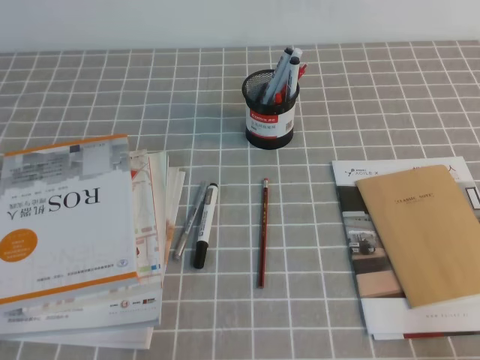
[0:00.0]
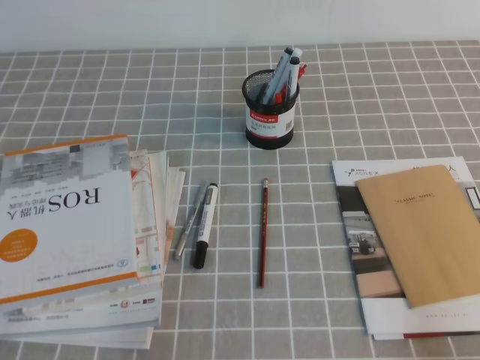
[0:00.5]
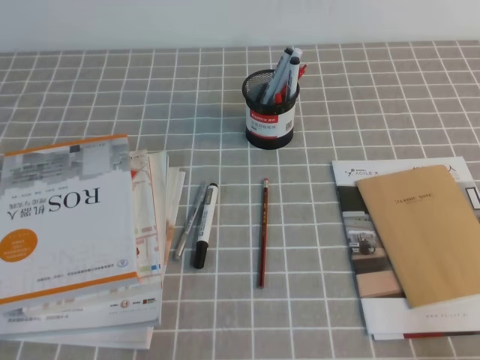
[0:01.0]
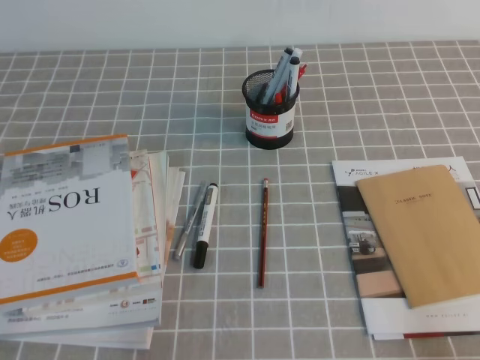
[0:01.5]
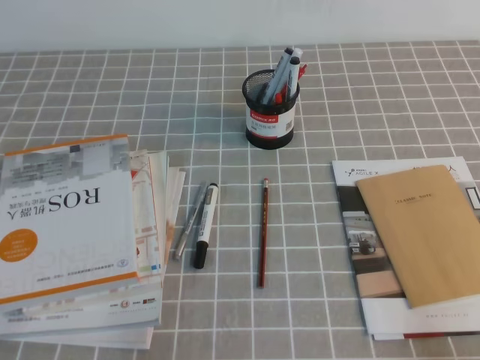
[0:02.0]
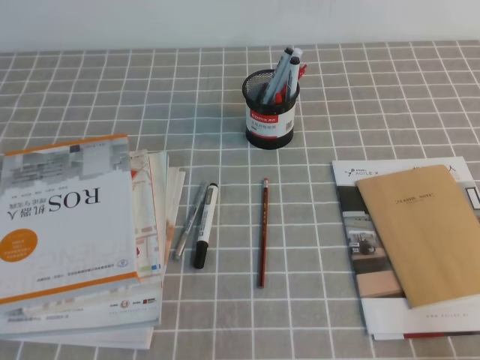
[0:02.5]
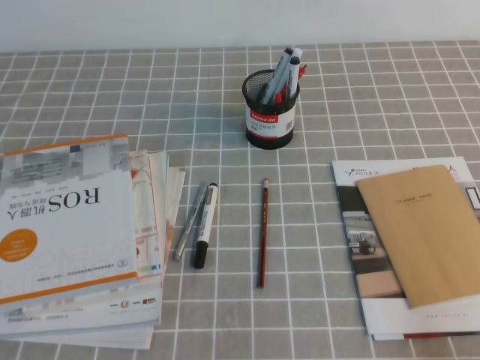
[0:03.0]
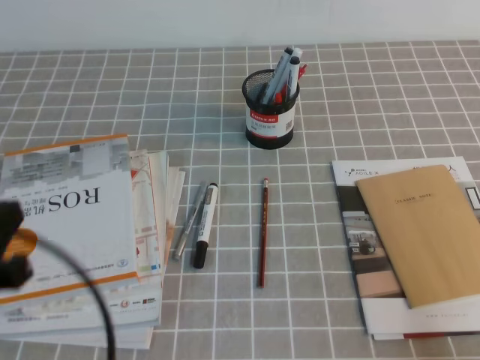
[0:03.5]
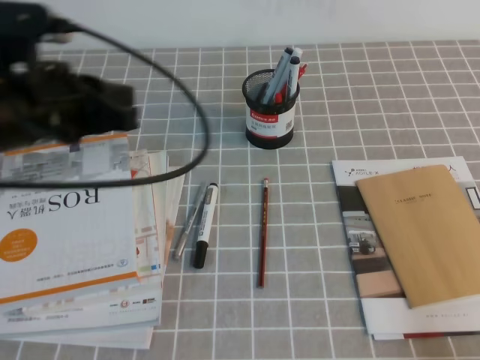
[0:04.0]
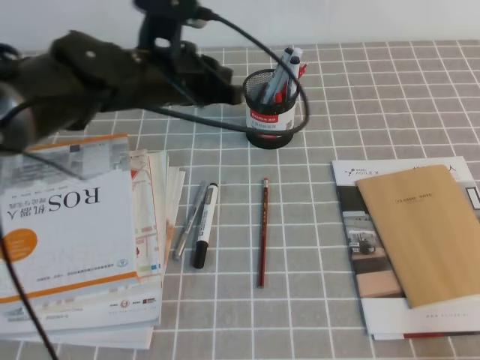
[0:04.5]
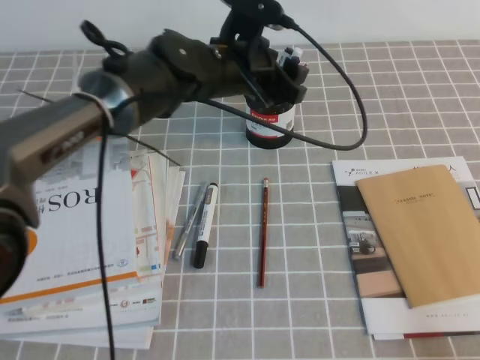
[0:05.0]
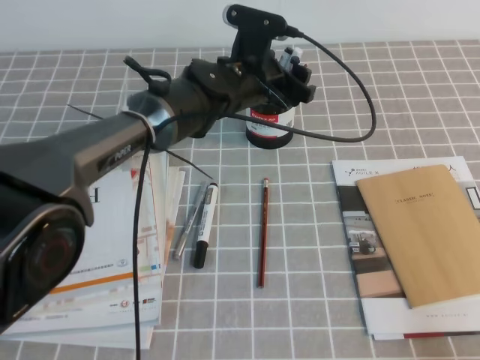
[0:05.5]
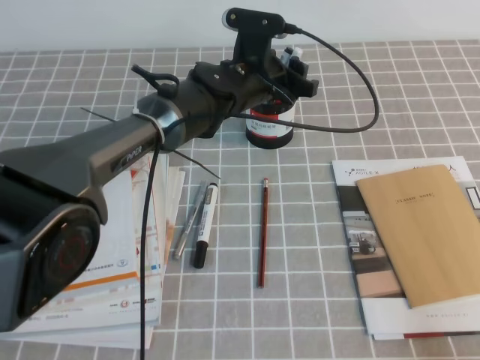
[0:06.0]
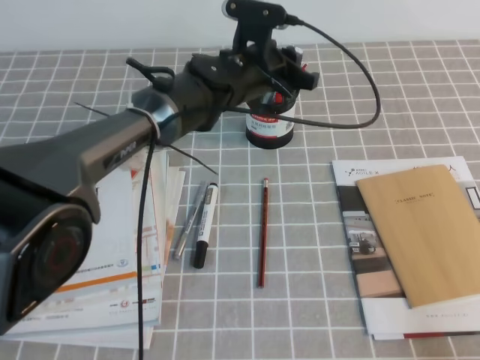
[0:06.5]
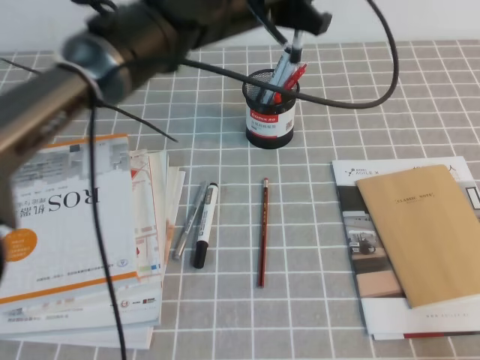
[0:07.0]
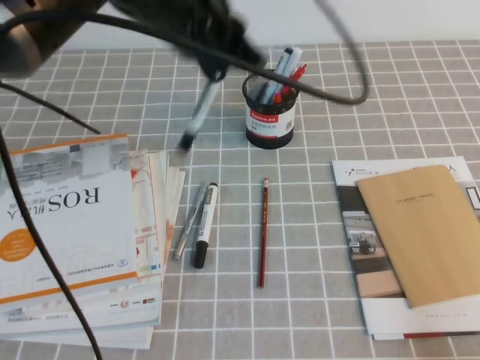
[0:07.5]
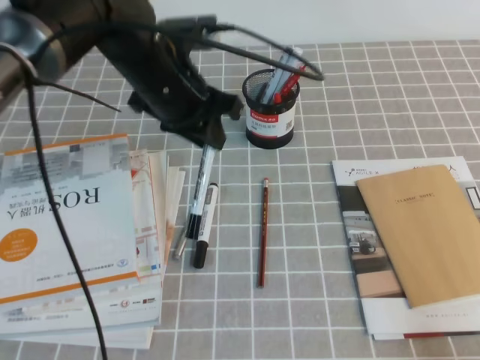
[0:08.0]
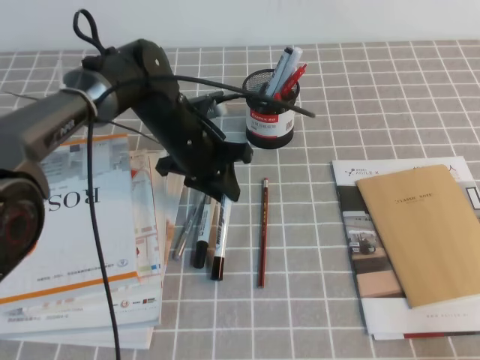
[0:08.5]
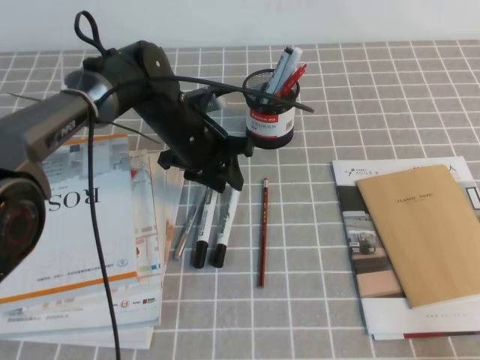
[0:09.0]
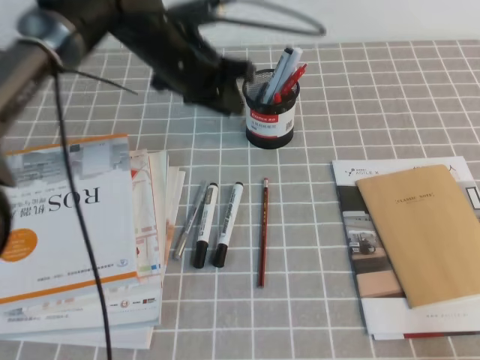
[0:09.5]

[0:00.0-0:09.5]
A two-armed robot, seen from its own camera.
2.0 to 4.0 s: The left gripper travels forward and upward by about 25 cm.
4.0 to 5.5 s: The left gripper goes about 30 cm to the right and forward, and opens its fingers.
5.5 to 7.5 s: The left gripper shifts about 20 cm upward and backward, and closes its fingers.
7.5 to 9.5 s: The left gripper shifts about 15 cm downward and forward.

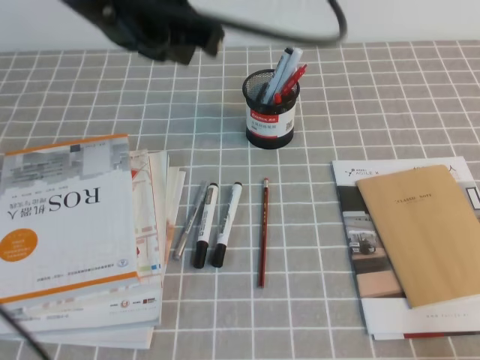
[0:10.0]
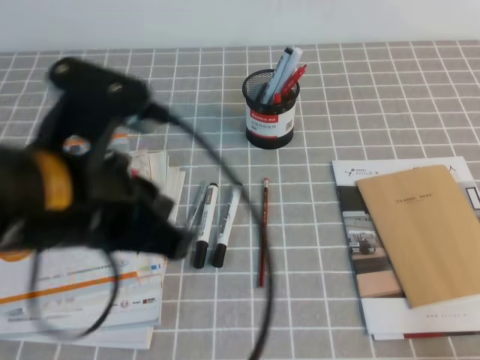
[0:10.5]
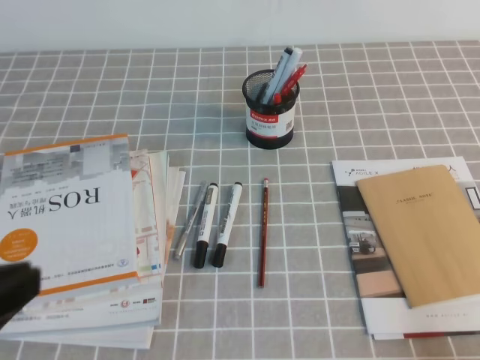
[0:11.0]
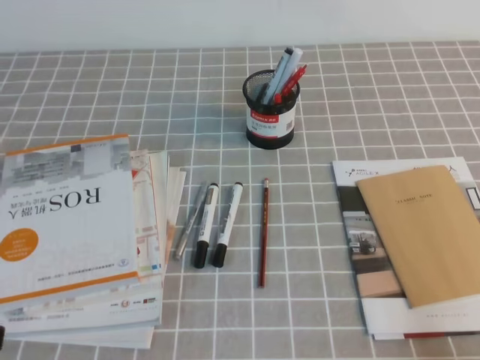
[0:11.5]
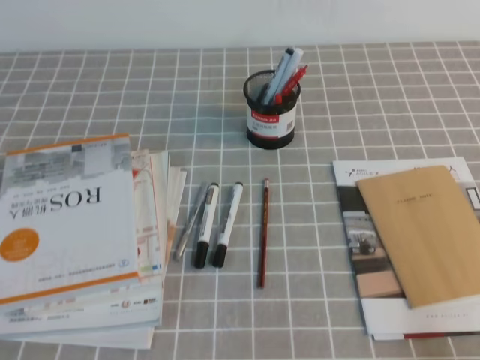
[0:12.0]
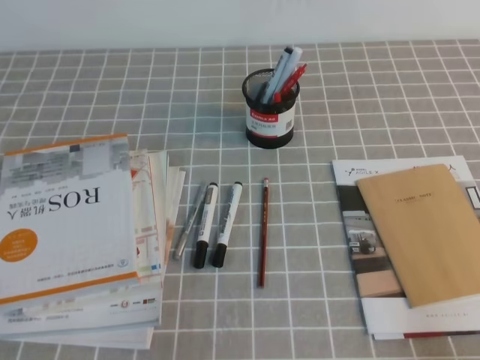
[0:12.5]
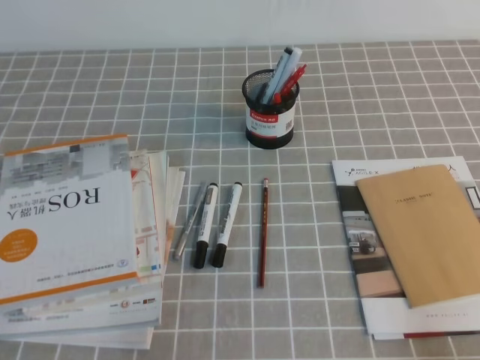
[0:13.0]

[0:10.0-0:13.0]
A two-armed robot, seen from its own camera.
Step, 10.0 to 13.0 s: Pick up the pen from the pen holder.
10.0 to 11.5 s: The left gripper travels backward and to the left by about 30 cm.
11.5 to 13.0 s: The left gripper moves downward, roughly 15 cm.

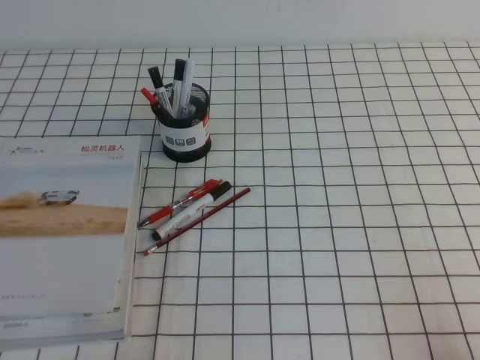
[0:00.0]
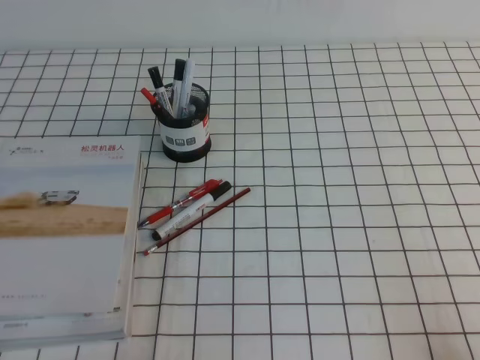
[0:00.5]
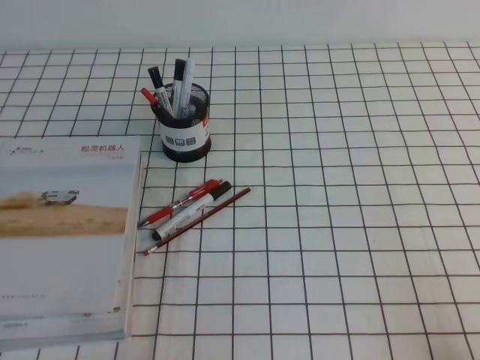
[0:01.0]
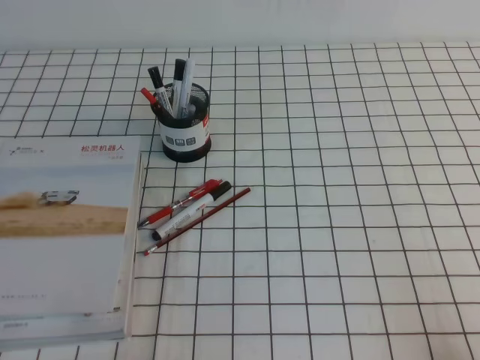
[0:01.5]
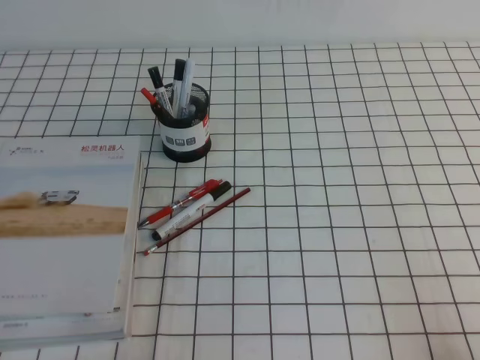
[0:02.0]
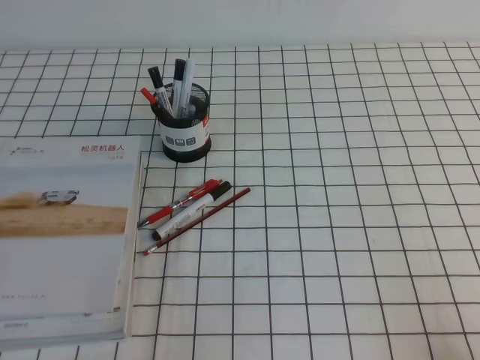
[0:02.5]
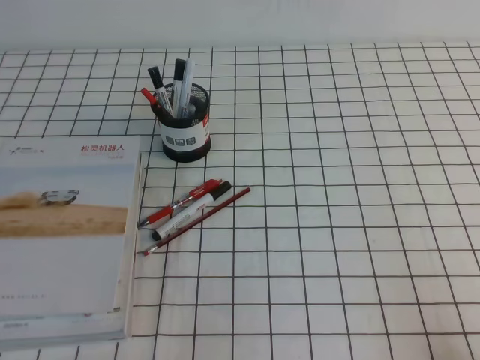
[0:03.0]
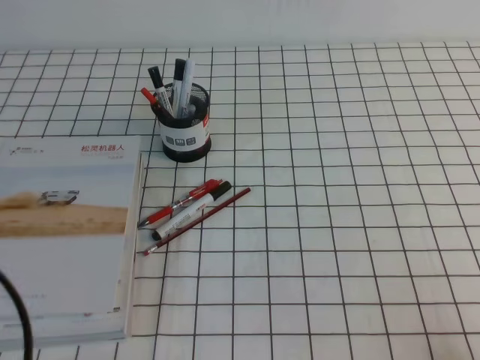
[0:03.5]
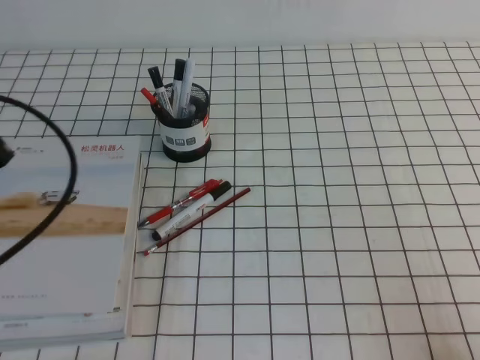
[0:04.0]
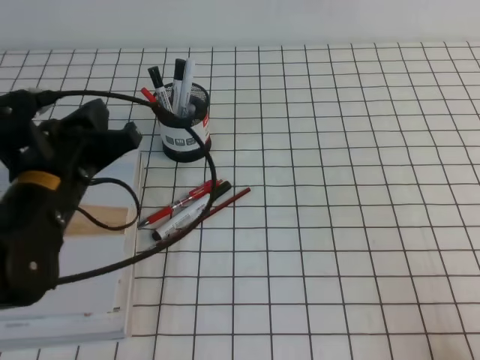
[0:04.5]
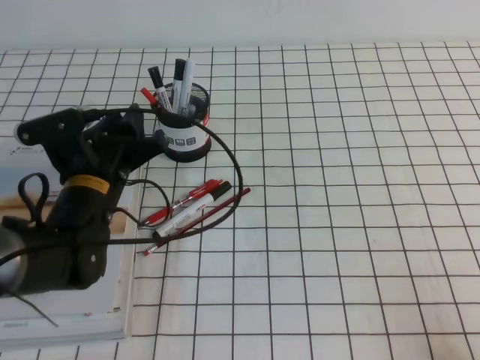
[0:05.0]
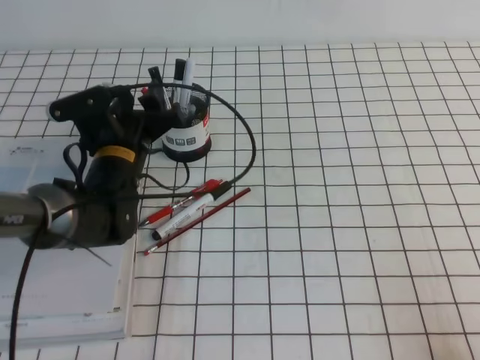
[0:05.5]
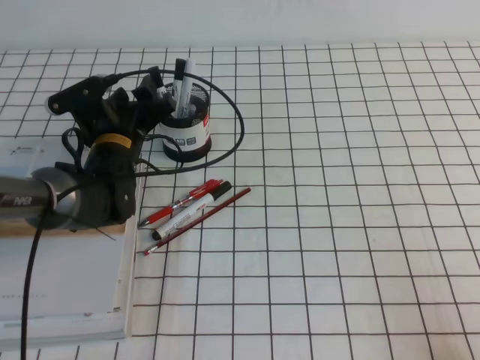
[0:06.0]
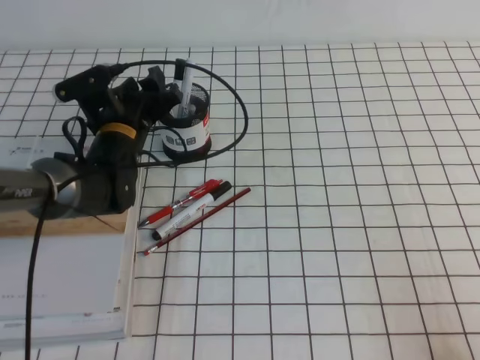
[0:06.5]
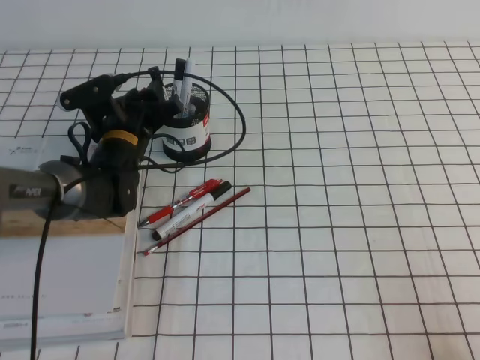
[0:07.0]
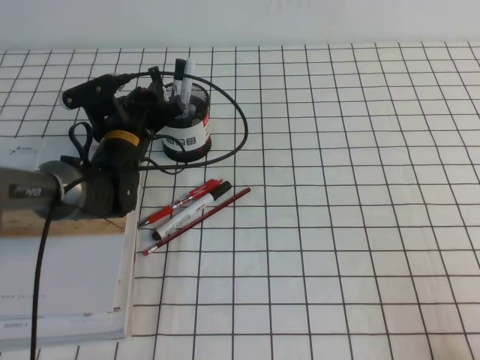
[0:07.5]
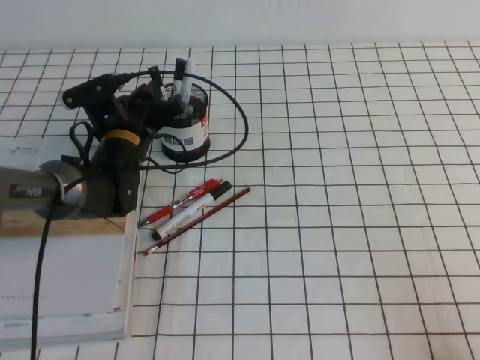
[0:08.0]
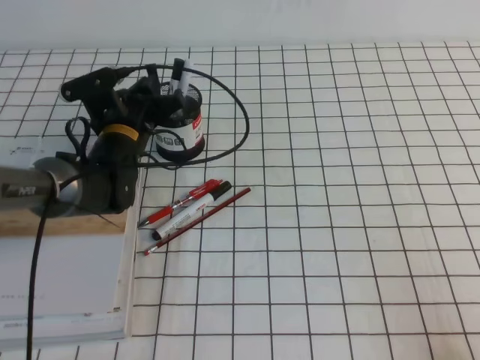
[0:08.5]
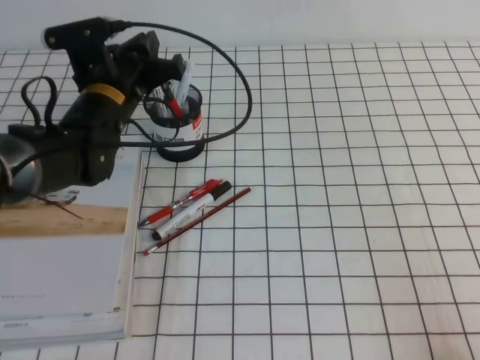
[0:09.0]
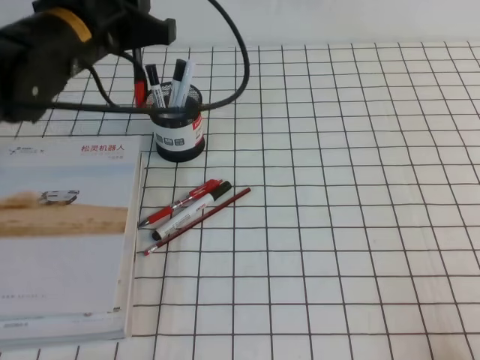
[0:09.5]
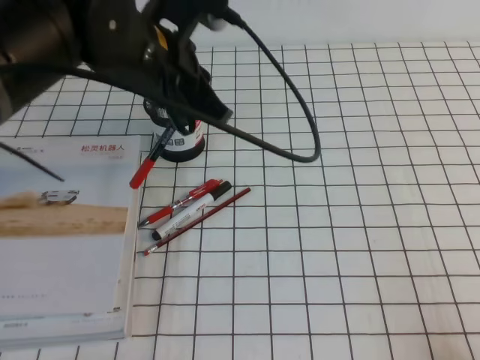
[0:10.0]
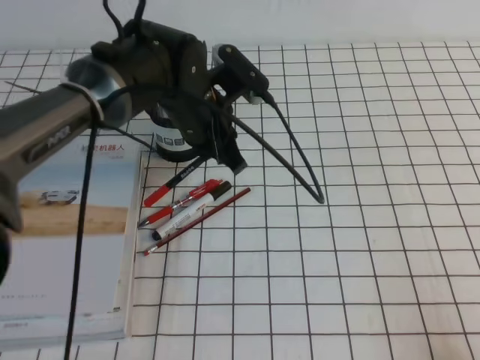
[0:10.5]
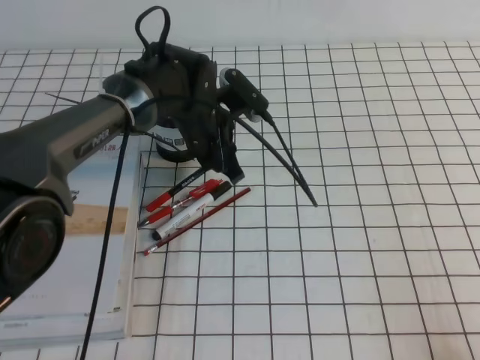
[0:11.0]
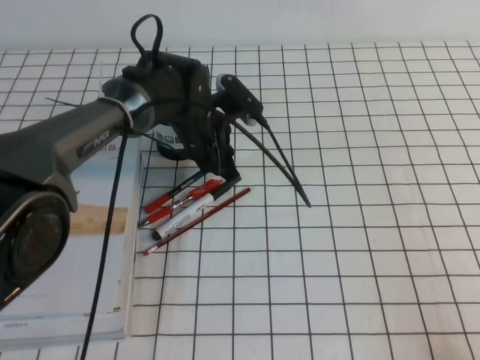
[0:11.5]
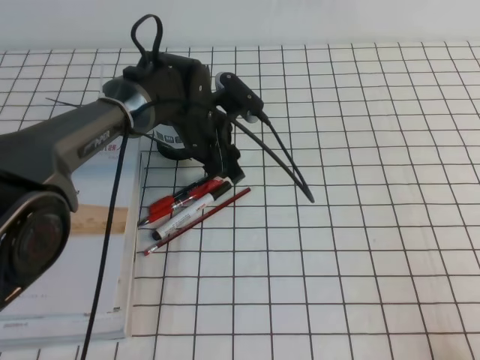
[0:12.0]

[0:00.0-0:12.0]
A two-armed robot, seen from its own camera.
0.0 to 2.0 s: Neither gripper changes place.
2.0 to 4.0 s: The left gripper is displaced forward and upward by approximately 20 cm.
4.0 to 6.0 s: The left gripper is displaced forward, downward and to the right by about 25 cm, and opens its fingers.
6.0 to 8.0 s: The left gripper closes.
8.0 to 10.0 s: The left gripper is displaced upward and backward by about 20 cm.
10.0 to 12.0 s: The left gripper heads downward and forward, covering some 20 cm, and opens up.

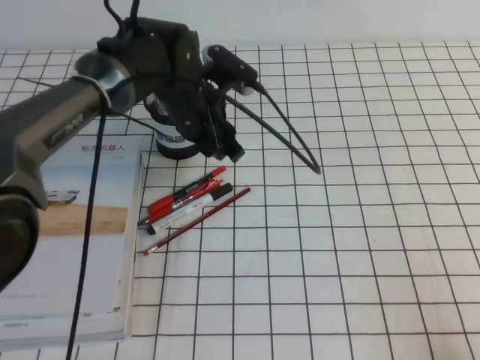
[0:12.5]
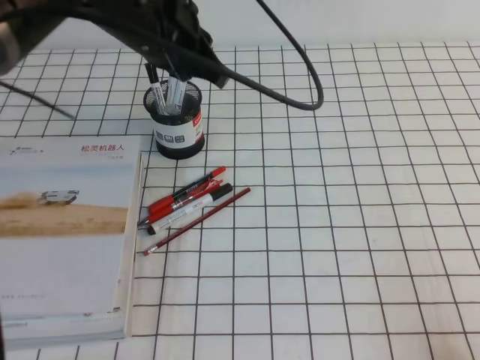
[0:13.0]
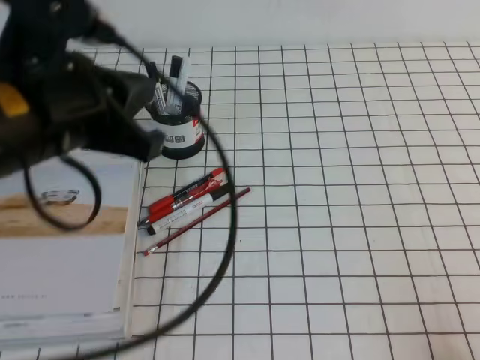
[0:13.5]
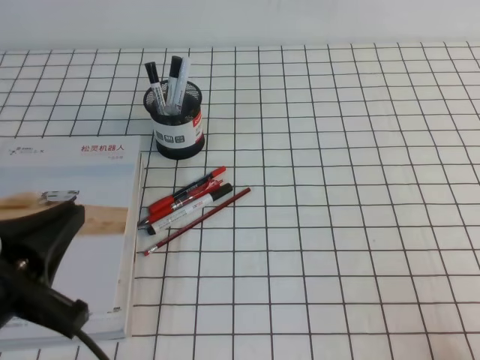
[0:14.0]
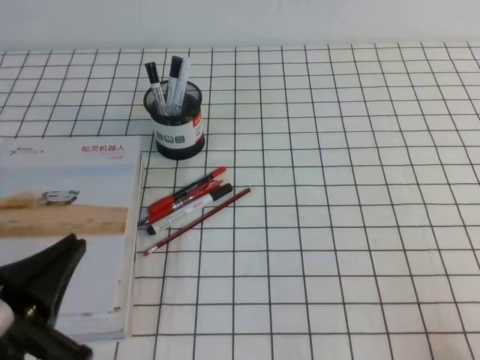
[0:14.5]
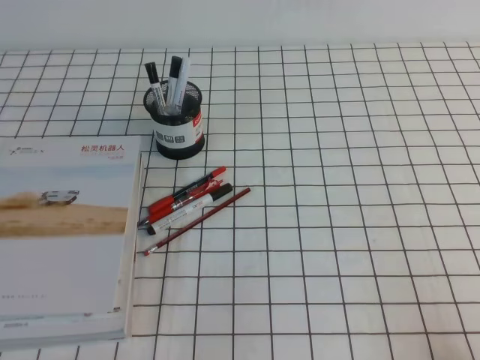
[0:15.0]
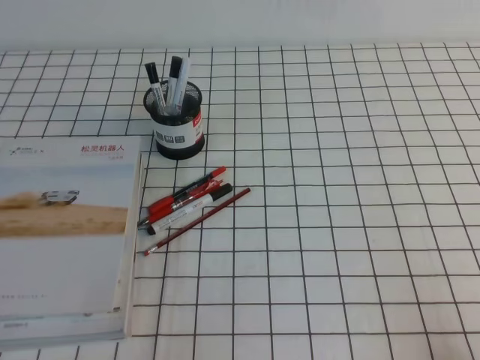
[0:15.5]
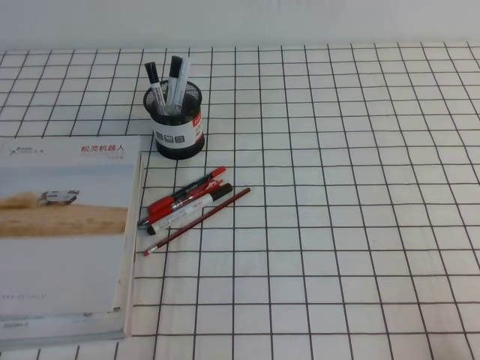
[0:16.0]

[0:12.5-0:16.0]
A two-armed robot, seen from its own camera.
12.5 to 14.5 s: The left gripper moves backward and to the left, about 35 cm, and closes up.
14.5 to 16.0 s: The left gripper is displaced downward and backward by roughly 10 cm.
